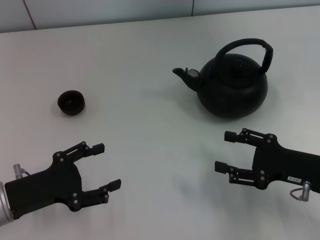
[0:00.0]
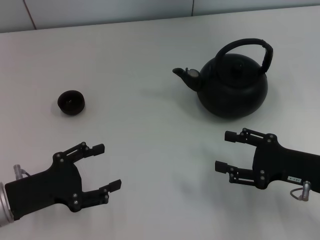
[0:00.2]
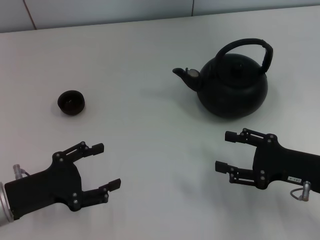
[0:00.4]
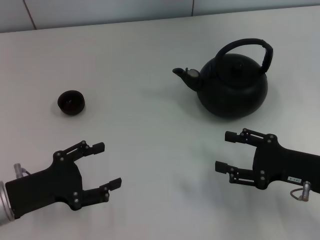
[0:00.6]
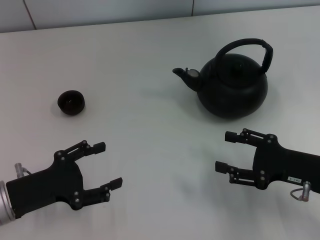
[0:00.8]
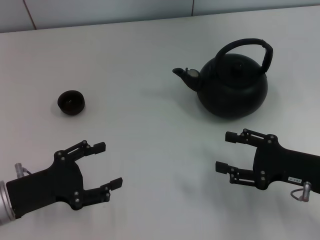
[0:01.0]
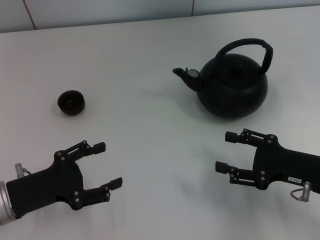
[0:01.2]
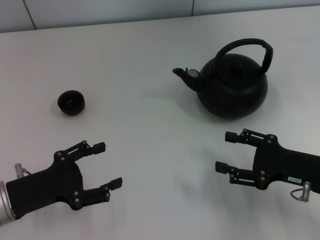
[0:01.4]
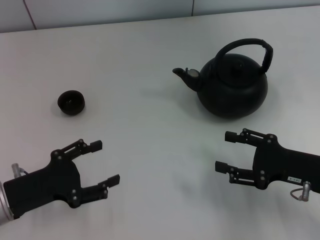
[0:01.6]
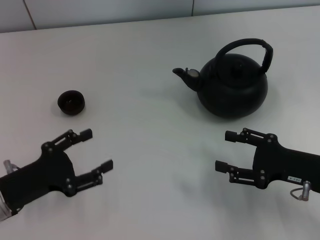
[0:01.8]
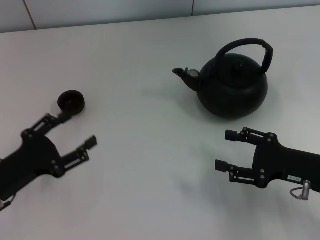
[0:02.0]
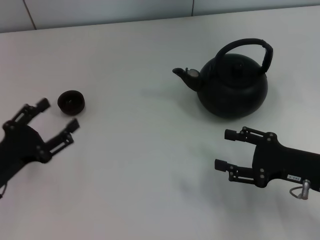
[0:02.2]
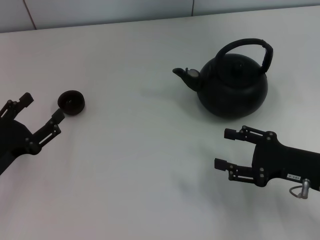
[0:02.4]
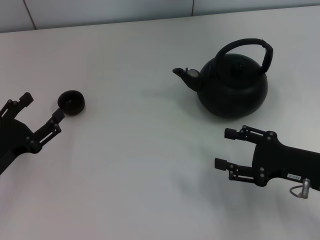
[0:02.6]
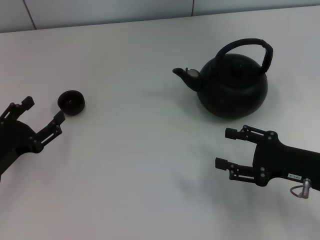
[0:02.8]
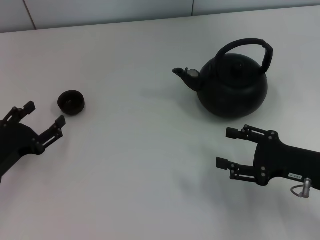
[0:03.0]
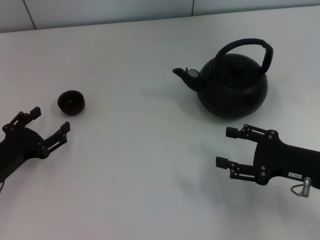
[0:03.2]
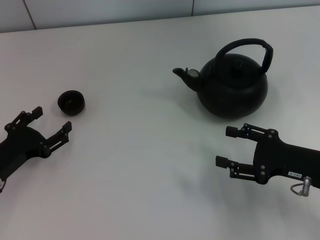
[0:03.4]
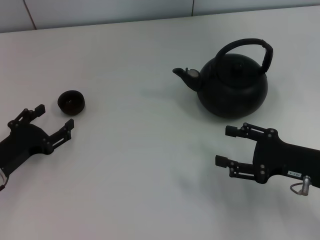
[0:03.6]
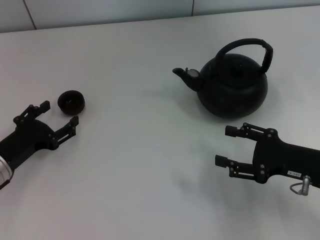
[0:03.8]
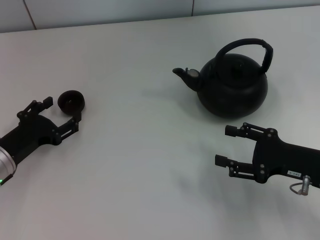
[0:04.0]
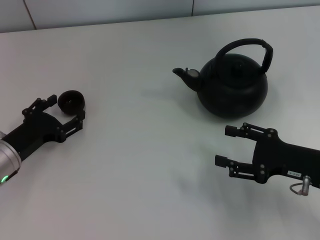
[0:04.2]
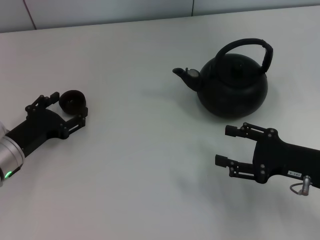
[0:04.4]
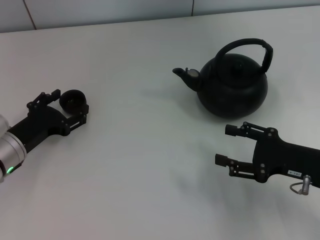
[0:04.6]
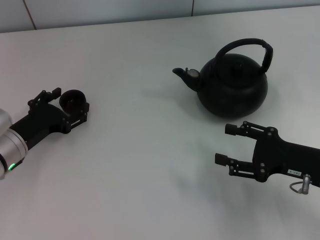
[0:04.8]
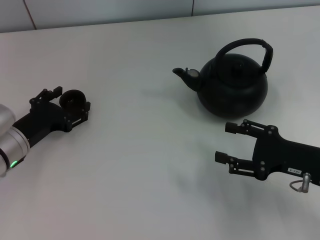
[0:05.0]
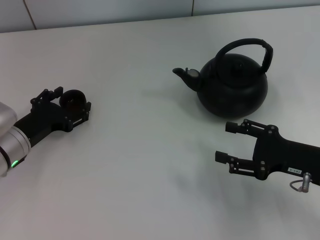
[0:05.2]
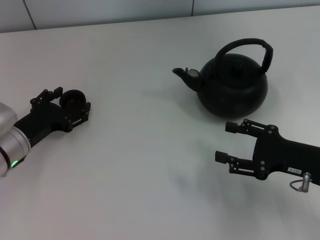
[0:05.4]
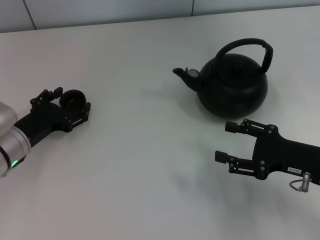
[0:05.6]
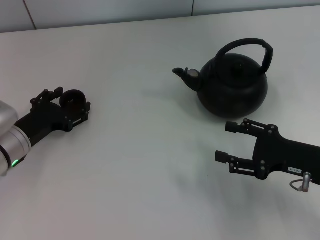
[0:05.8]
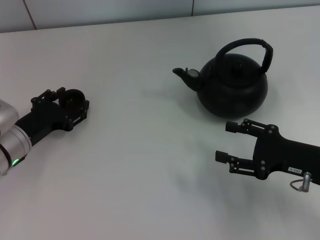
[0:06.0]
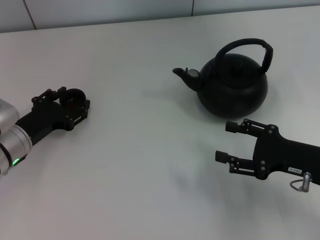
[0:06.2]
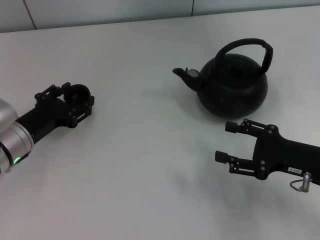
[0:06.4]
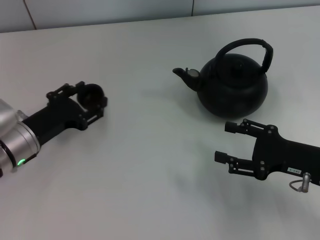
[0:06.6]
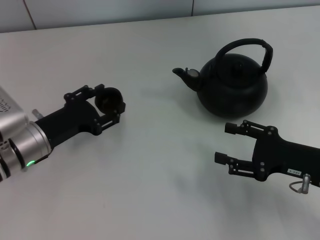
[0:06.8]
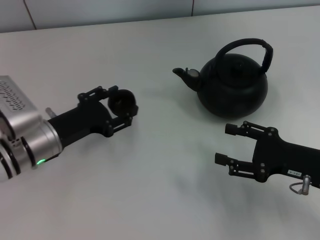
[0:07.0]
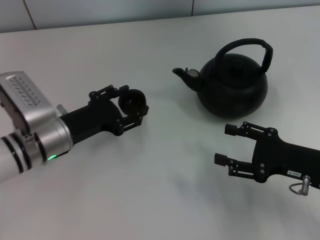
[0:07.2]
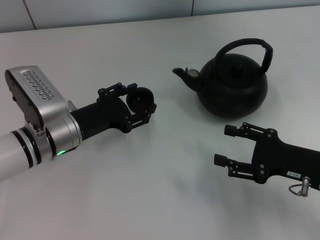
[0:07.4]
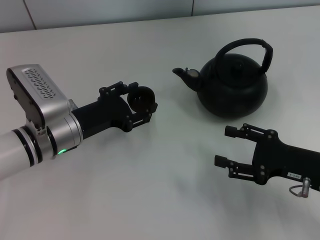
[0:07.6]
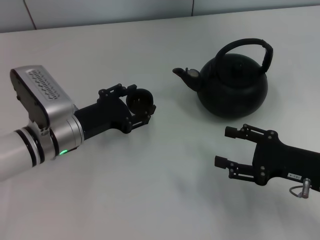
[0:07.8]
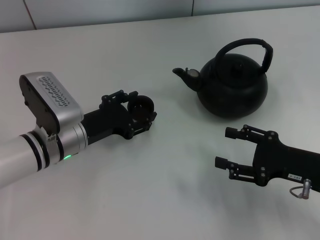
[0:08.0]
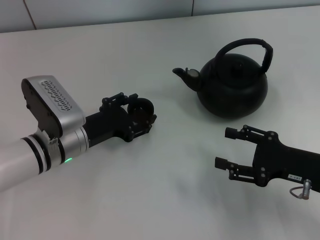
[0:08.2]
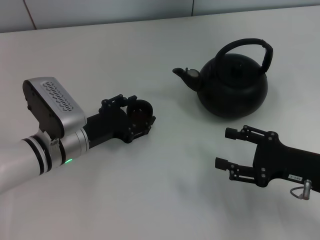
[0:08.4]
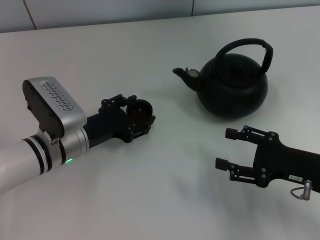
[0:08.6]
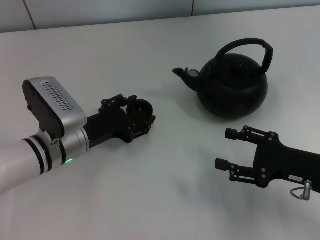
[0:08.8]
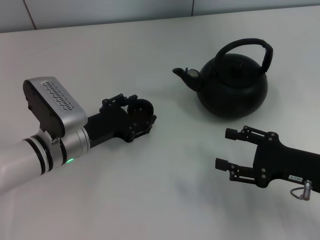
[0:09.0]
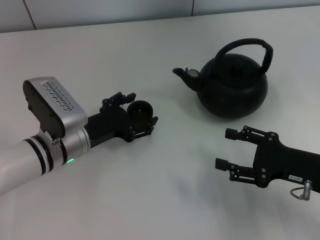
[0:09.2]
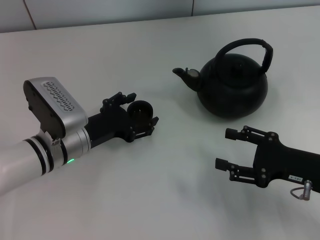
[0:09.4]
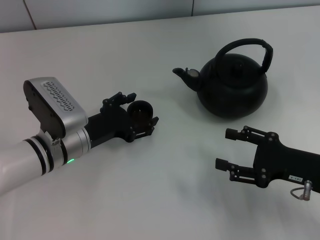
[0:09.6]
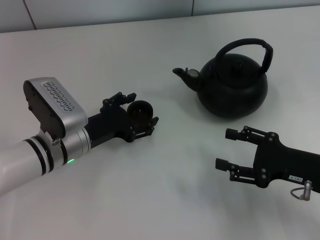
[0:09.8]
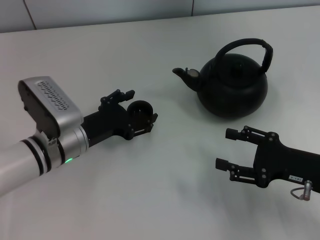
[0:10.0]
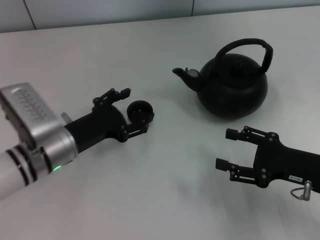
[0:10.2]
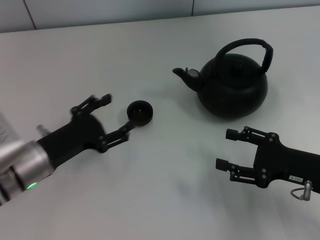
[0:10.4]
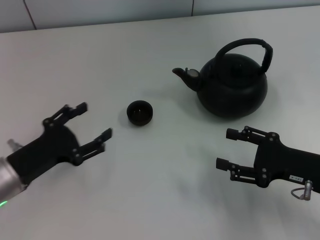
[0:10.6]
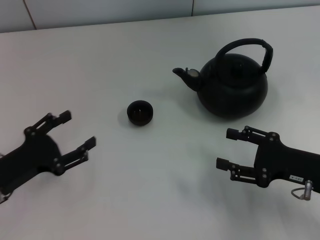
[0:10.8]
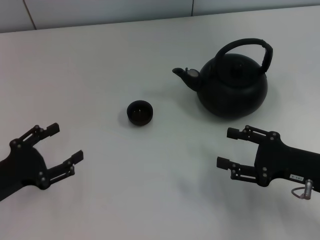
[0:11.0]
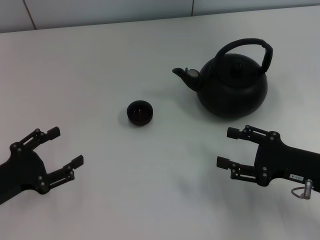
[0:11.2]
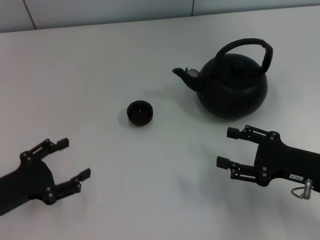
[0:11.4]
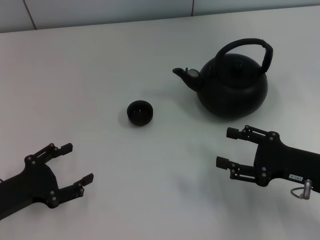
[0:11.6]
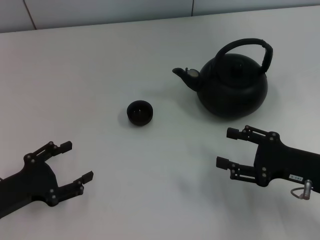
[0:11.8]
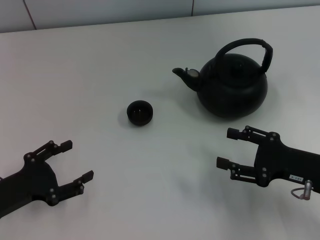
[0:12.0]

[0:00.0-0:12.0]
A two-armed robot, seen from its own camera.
Task of the whole recording: Grasp the handle of the teapot with one hand and pour tea into the teacup.
Step, 0:00.0 to 0:06.4: Pick up the teacup with the left gripper.
Step, 0:06.6 to 0:10.4: Place the teacup in the center of view with the left gripper.
0:00.0 to 0:01.6: Neither gripper changes place.
0:03.0 to 0:04.4: The left gripper shifts by some 5 cm.
0:04.4 to 0:06.0: The grippers stay close to where they were, moving slightly.
0:06.0 to 0:07.6: The left gripper moves to the right, roughly 10 cm, and closes up.
0:07.6 to 0:09.0: The grippers stay close to where they were, moving slightly.
0:09.0 to 0:10.4: The left gripper shifts by some 5 cm, and opens its fingers.
0:10.4 to 0:12.0: The left gripper goes about 10 cm to the left and backward.

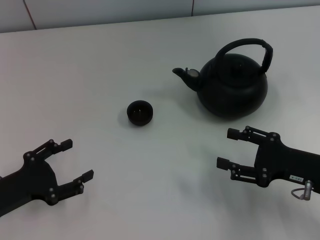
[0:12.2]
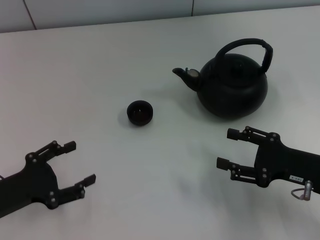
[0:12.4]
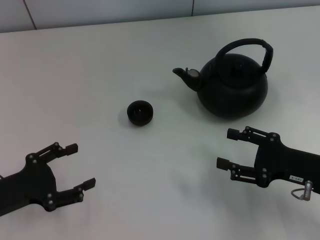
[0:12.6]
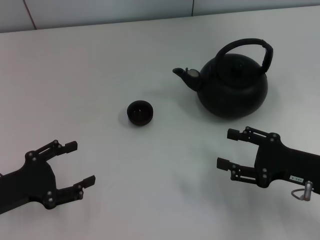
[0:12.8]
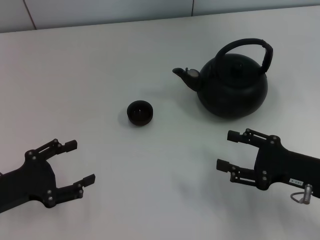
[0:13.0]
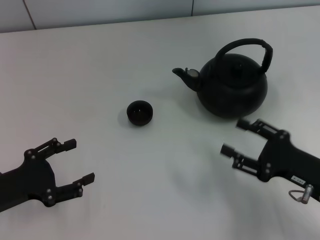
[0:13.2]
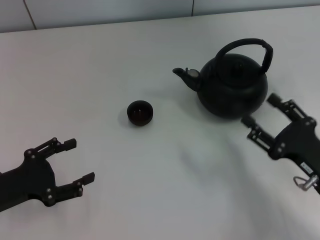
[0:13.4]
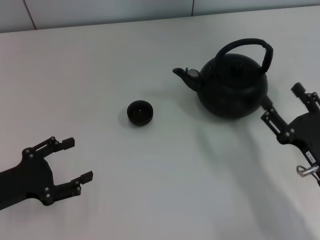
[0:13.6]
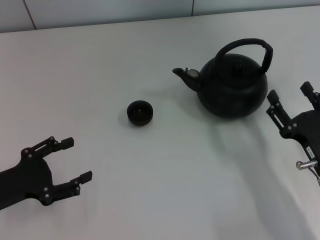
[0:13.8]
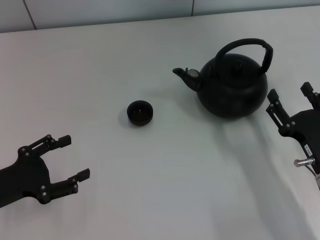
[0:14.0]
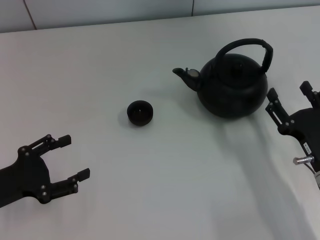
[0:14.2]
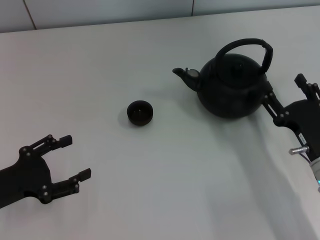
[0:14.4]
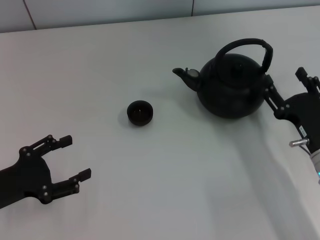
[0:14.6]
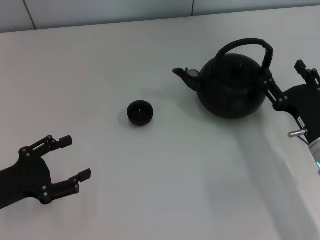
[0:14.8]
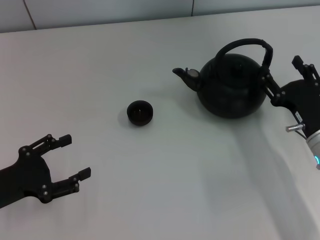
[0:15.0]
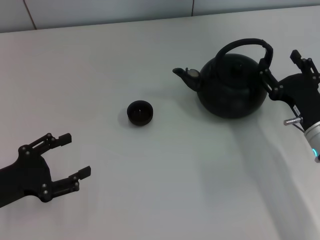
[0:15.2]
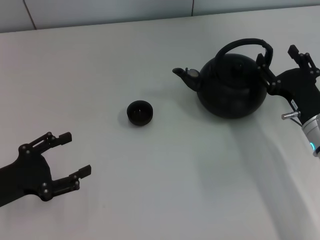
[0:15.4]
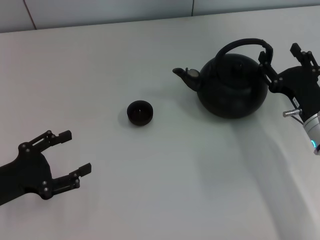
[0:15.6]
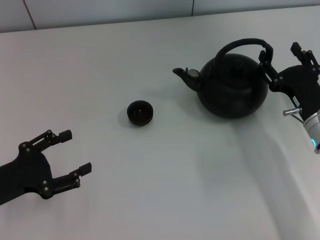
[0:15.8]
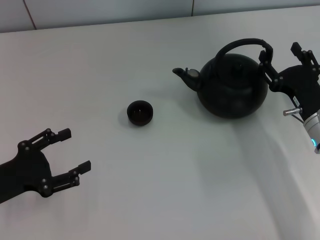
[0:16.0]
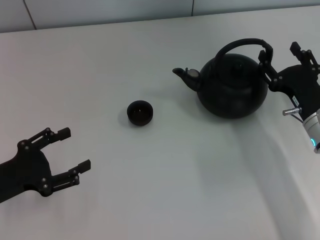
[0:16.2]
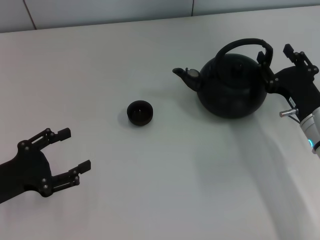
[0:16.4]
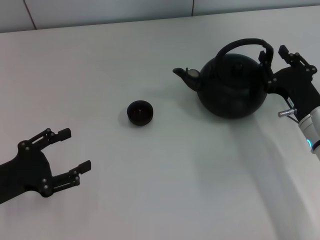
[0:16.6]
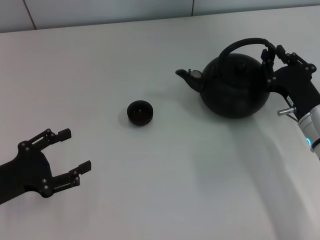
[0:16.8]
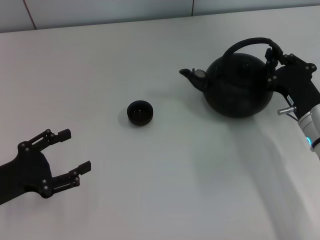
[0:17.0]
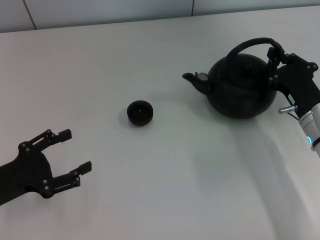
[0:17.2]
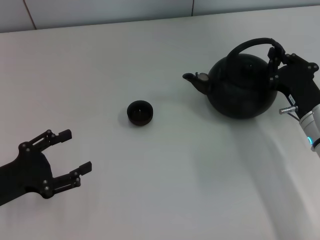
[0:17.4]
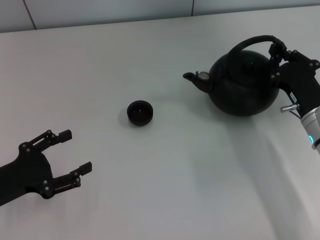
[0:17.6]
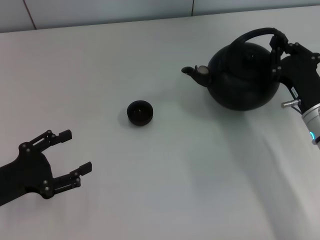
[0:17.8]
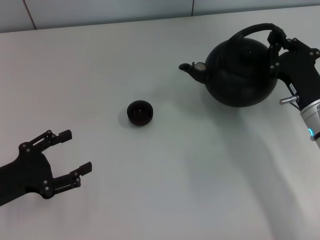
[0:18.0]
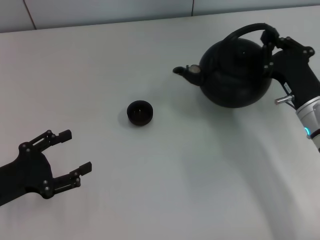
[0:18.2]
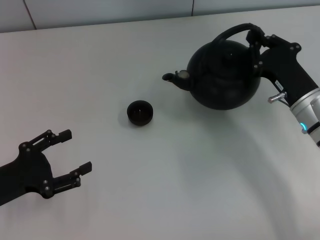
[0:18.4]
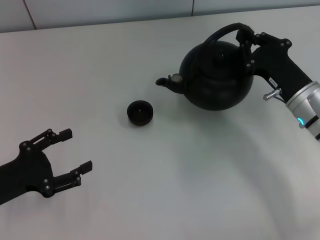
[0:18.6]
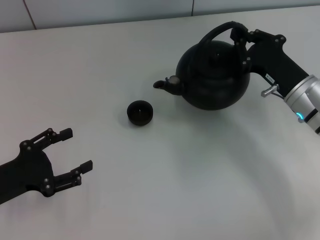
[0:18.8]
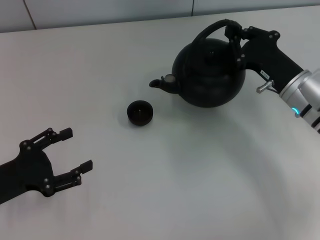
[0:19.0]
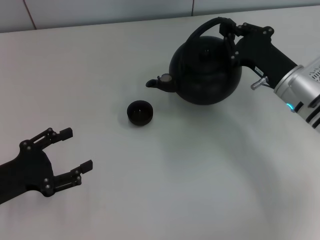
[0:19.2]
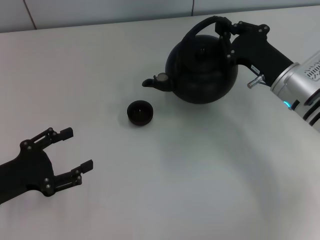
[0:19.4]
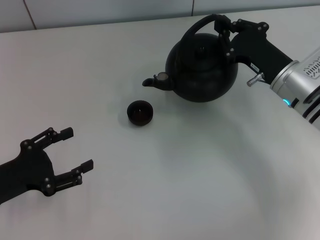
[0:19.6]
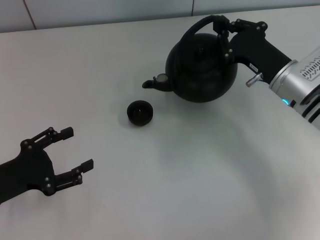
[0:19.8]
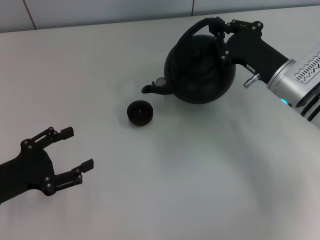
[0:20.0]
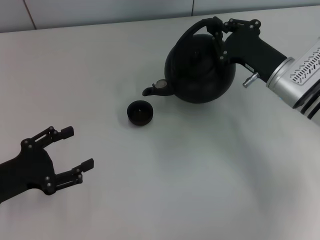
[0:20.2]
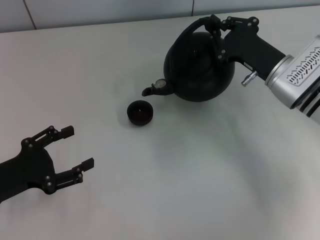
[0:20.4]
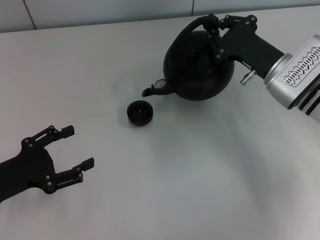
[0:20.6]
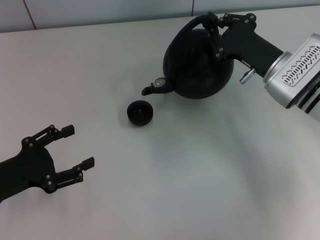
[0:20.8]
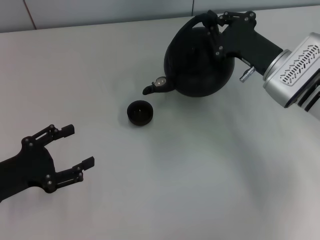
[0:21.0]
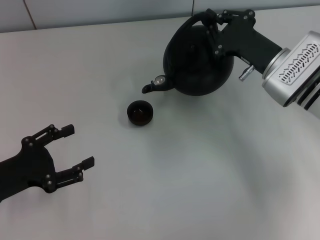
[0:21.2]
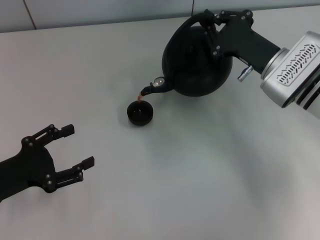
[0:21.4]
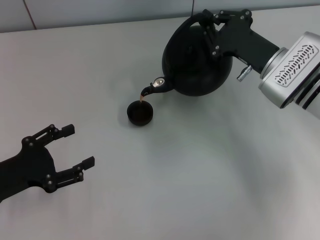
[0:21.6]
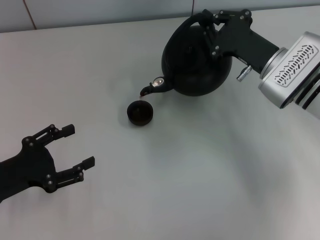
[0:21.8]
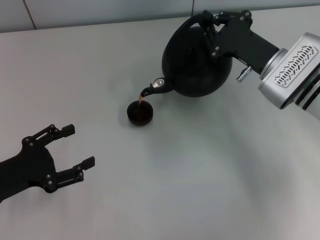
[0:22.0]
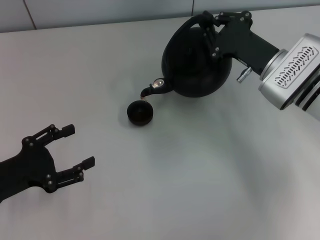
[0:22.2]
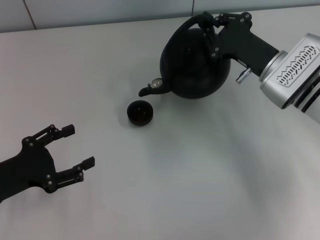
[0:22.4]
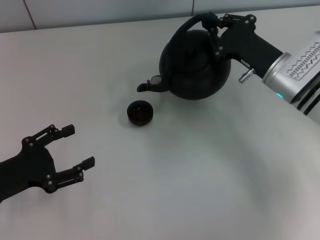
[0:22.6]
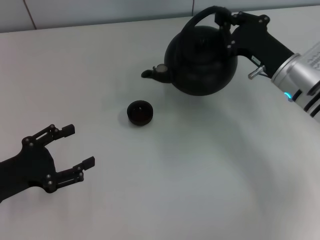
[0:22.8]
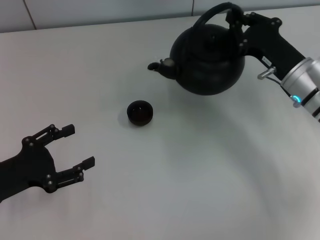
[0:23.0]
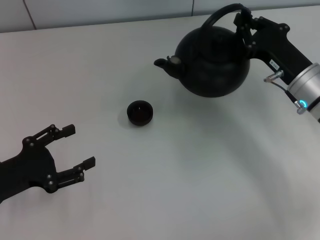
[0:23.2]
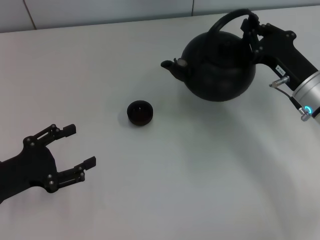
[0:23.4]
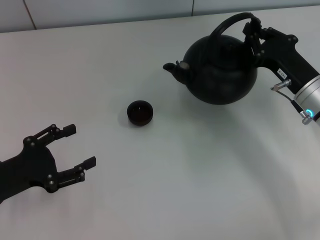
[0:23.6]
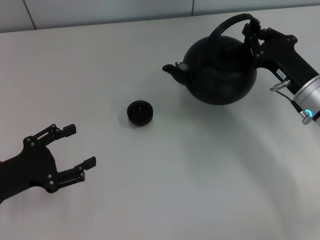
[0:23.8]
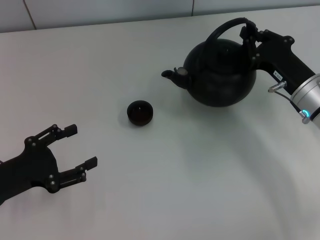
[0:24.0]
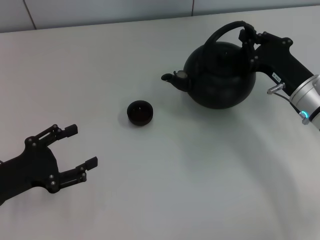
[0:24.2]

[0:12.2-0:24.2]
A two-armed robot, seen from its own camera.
Task of the whole recording: Grasp the handle of the teapot with one hand and pour tea into the teacup.
Step, 0:12.2 to 0:17.8: Pick up the teapot with the right gripper.
0:12.2 to 0:13.8: The right gripper shifts by some 5 cm.
0:13.8 to 0:15.2: The right gripper heads forward, covering approximately 10 cm.
0:15.2 to 0:16.6: There are only small adjustments of the grippers.
0:16.6 to 0:18.2: The right gripper closes its fingers.
0:18.2 to 0:19.8: The right gripper moves forward, some 5 cm.
0:19.8 to 0:22.6: The grippers move only a little.
0:22.6 to 0:24.2: The right gripper shifts by approximately 5 cm.
